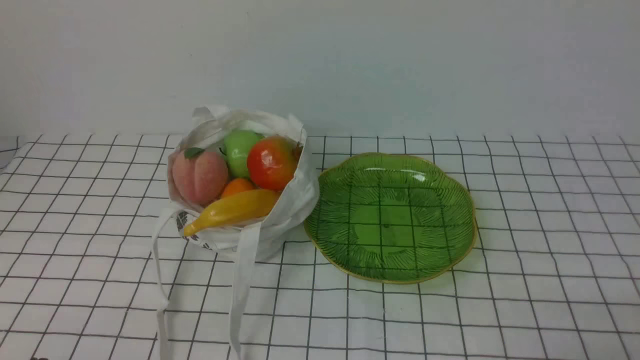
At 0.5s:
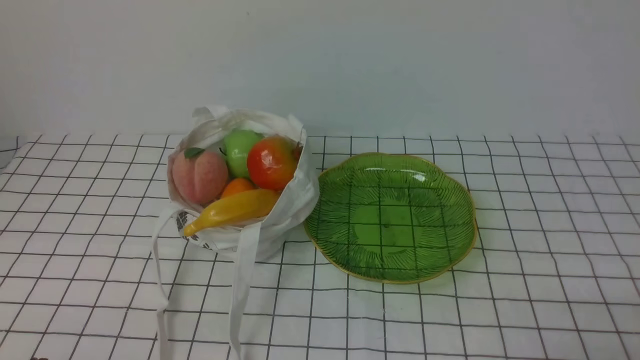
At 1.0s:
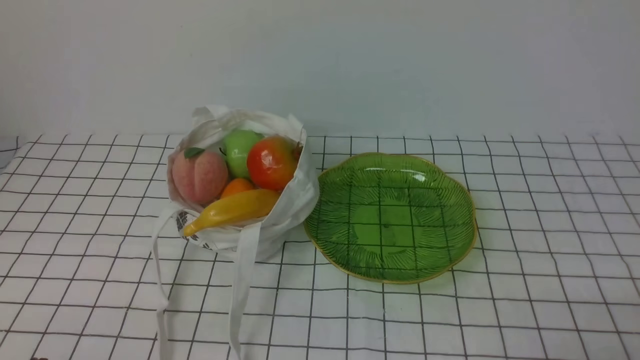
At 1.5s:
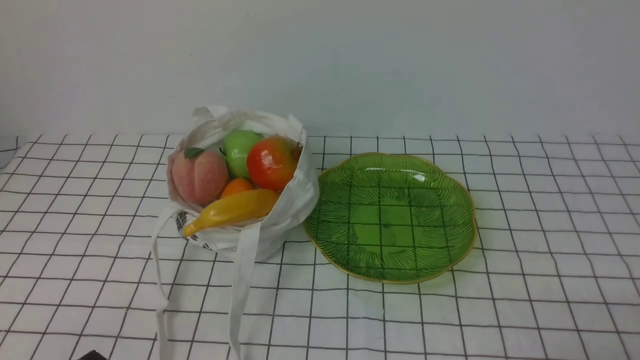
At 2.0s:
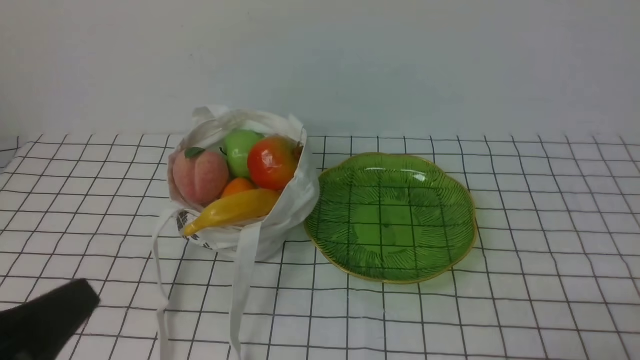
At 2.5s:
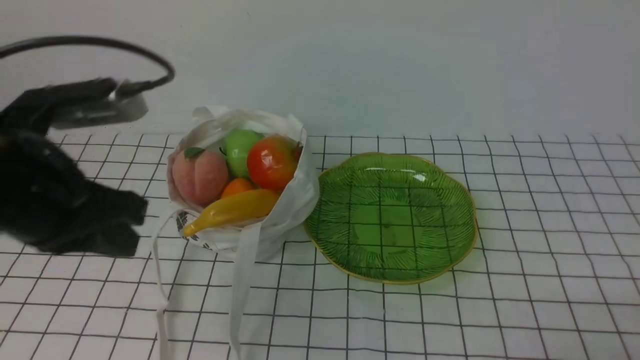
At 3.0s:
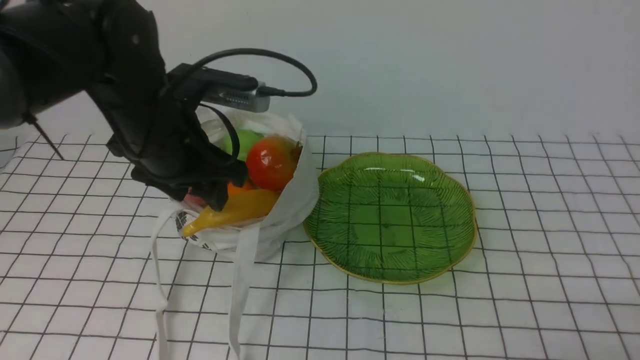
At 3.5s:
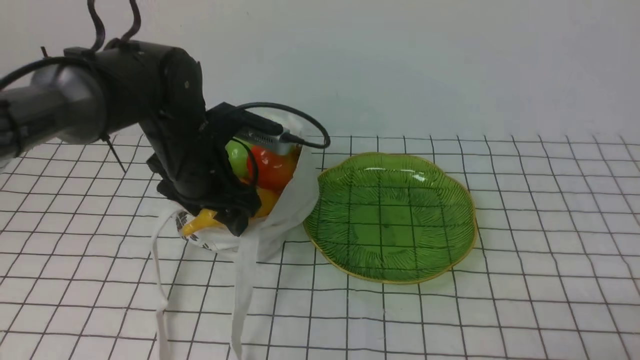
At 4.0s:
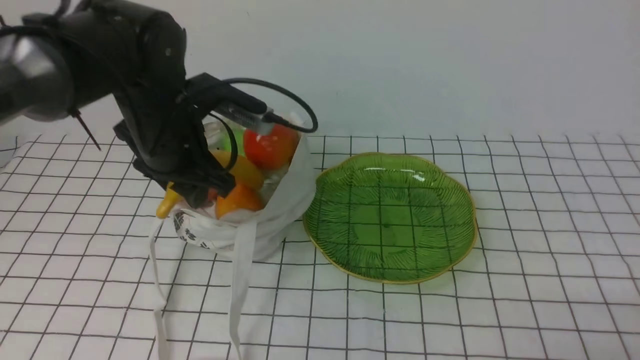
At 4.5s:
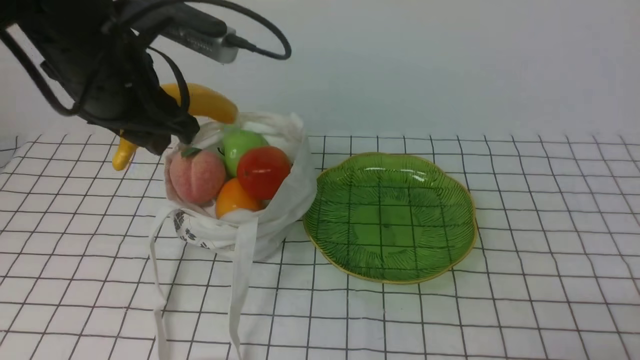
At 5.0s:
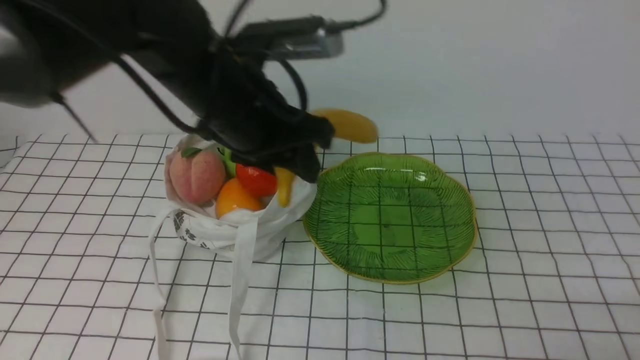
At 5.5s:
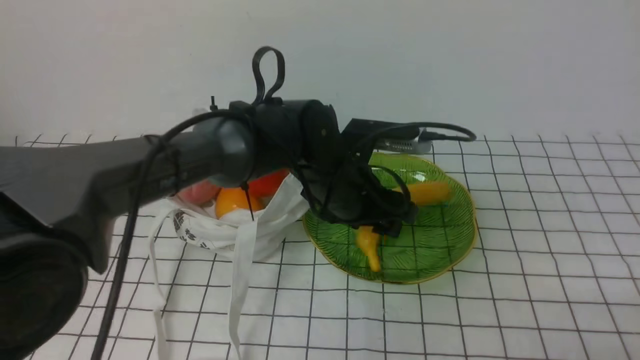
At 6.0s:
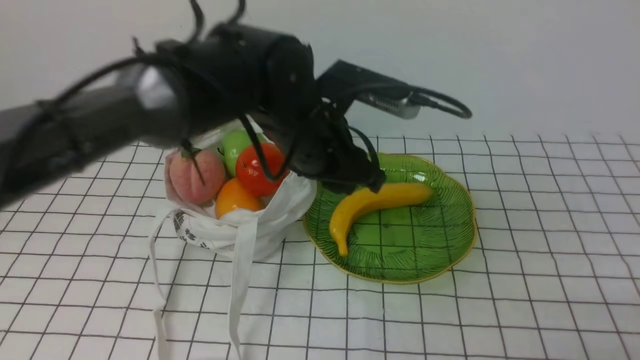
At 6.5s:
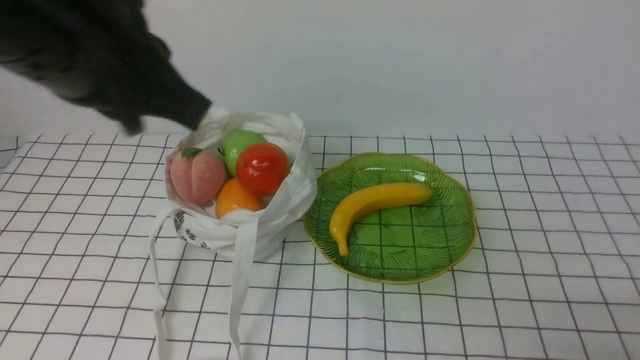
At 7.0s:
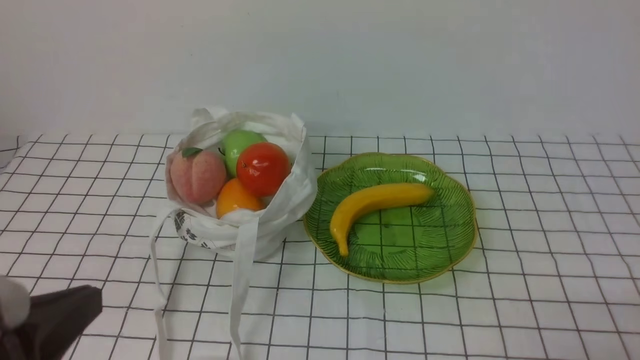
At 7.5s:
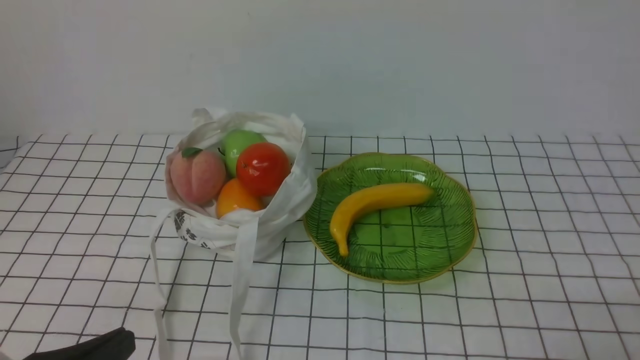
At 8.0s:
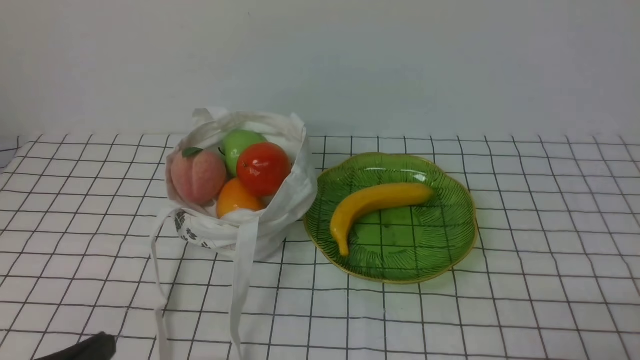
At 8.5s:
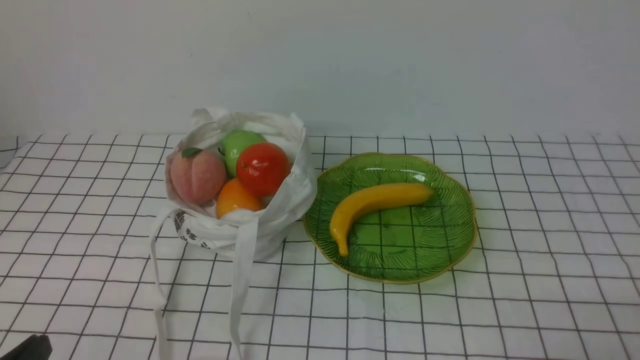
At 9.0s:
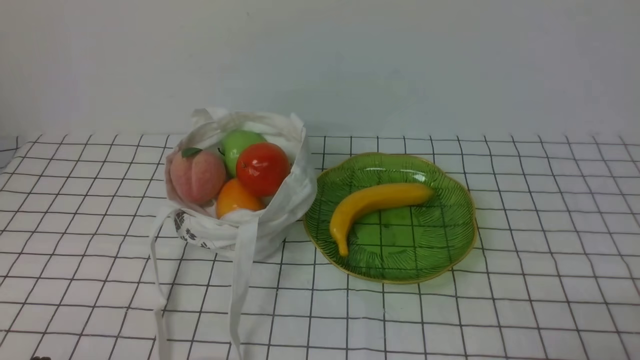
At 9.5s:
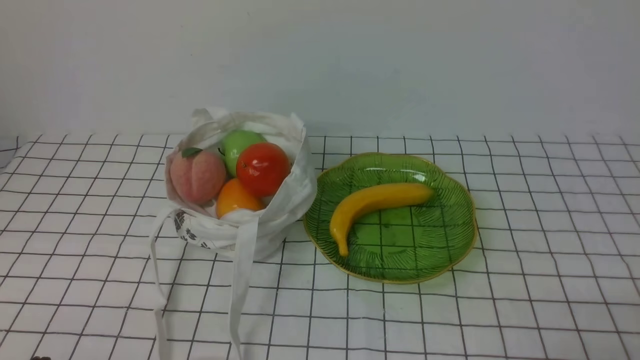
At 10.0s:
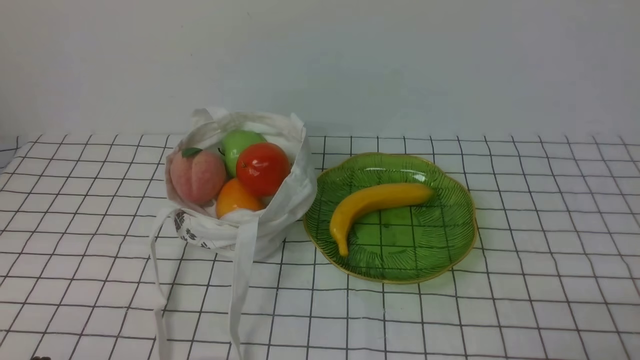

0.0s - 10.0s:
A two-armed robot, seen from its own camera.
Step, 0.0s - 3.5s: use the left arm to grab a banana from the bag.
Step, 4.0s - 5.5s: use the left arm to put the banana into the empty plate on the right.
2.0s - 4.0s: The left gripper heads forward, covering roughly 30 cm, and opens its fingers.
4.0s - 6.0s: The left gripper goes approximately 15 cm to the right.
6.0s - 8.0s: The left gripper is displaced backward and to the left by some 35 cm, and closes its fingers.
